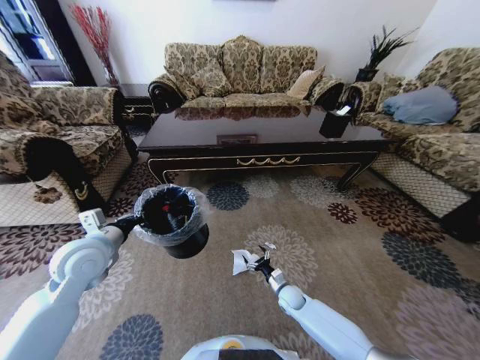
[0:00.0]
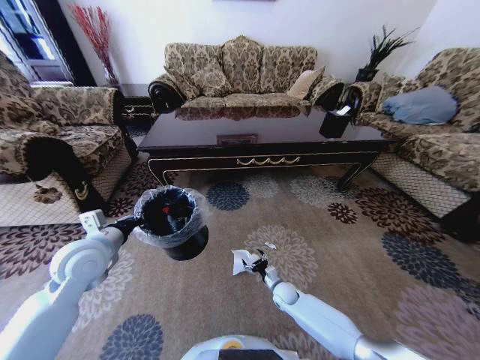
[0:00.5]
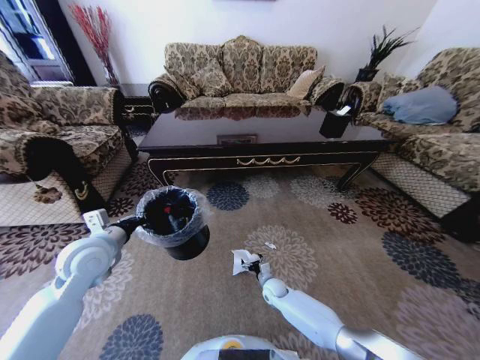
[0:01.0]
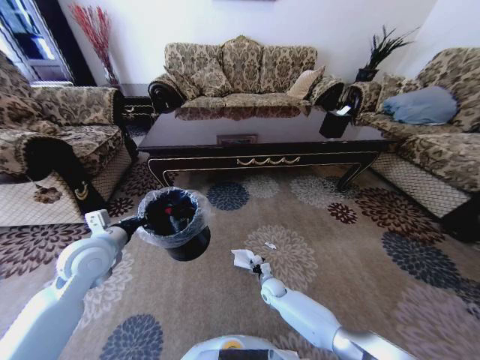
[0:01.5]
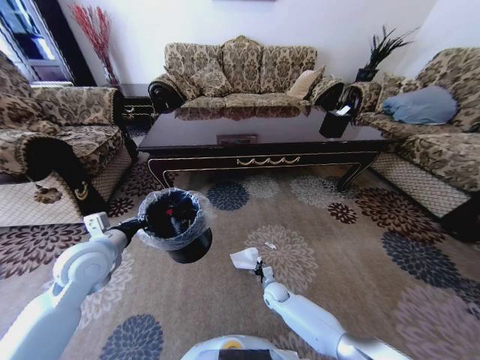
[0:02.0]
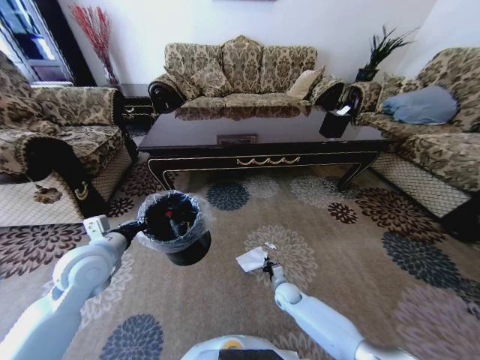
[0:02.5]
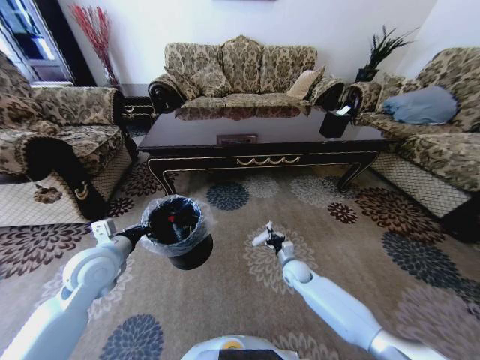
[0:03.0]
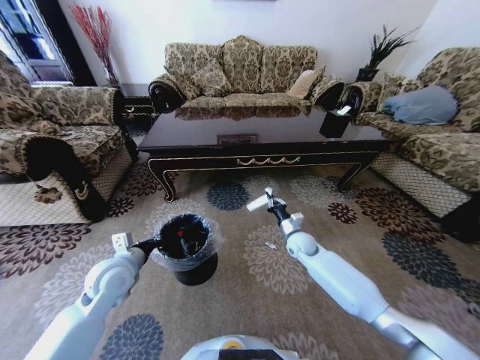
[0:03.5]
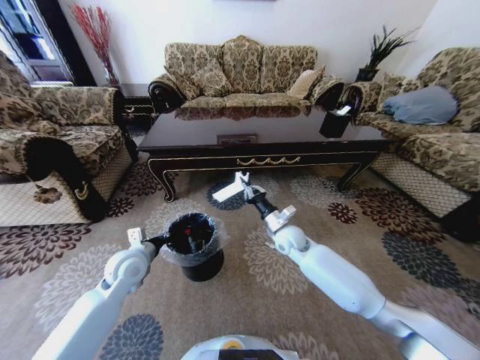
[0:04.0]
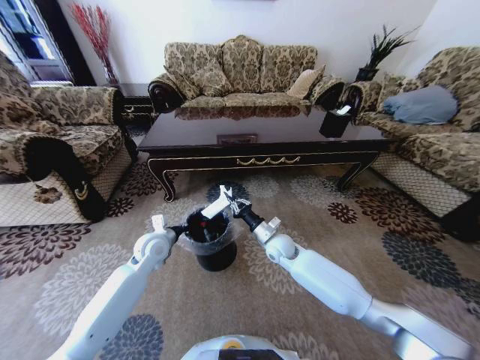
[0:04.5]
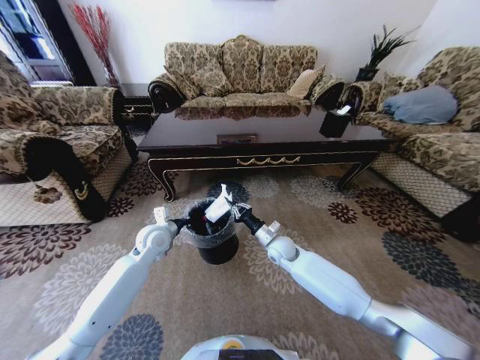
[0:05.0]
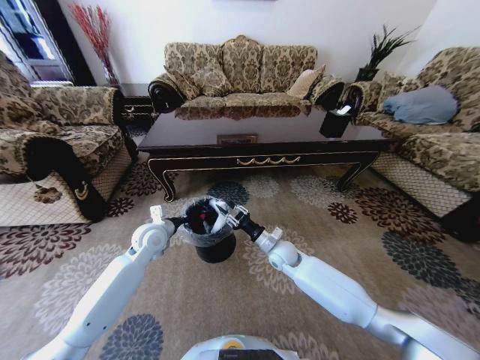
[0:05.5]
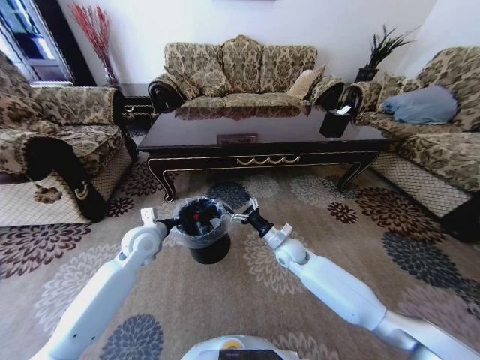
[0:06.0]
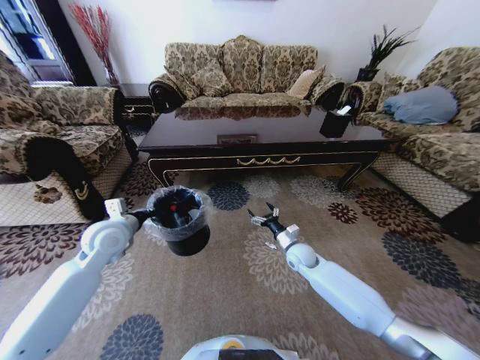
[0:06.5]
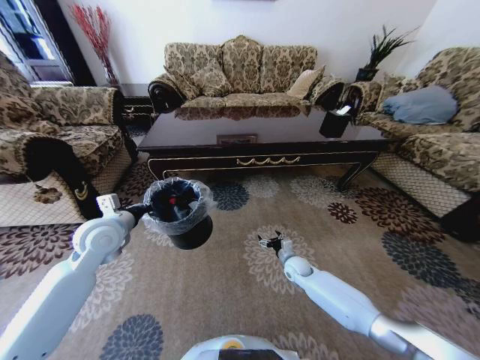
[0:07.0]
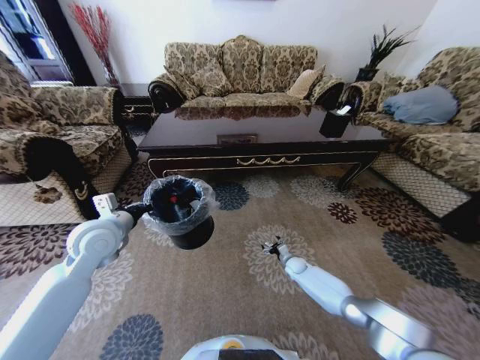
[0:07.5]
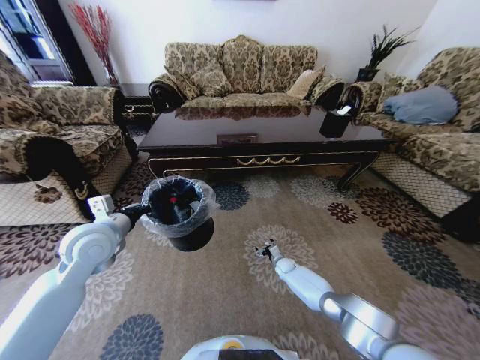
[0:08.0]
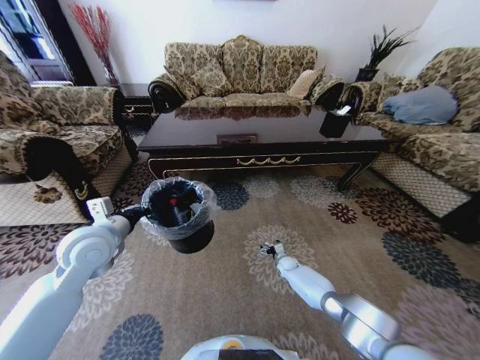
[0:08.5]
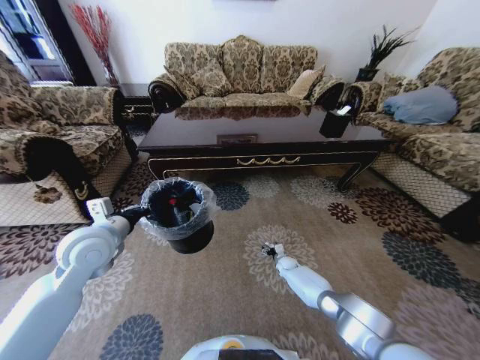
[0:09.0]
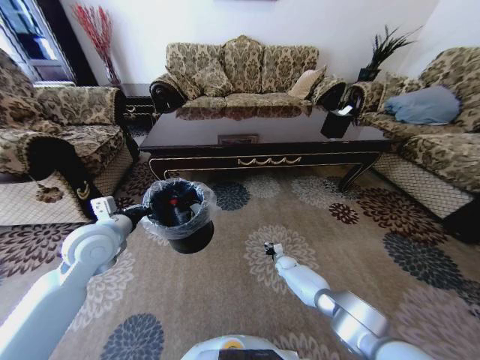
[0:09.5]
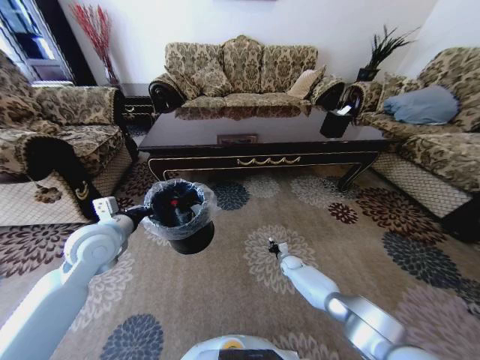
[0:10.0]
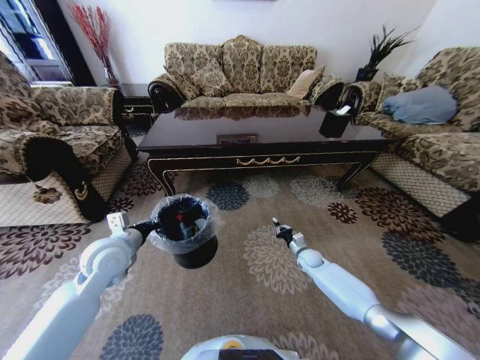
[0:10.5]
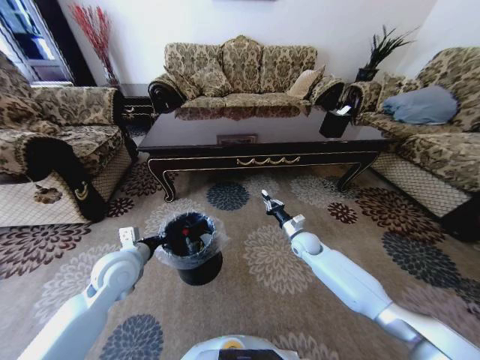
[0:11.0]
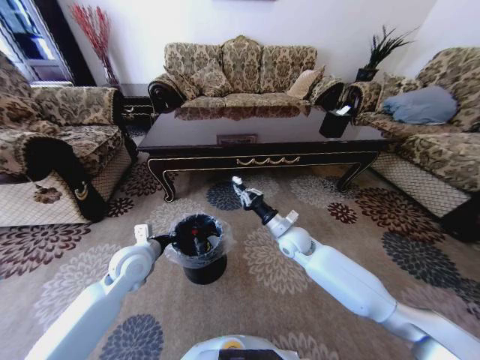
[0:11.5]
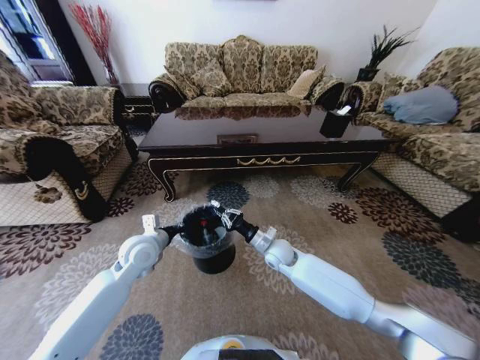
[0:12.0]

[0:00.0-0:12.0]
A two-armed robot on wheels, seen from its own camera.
Task of the whole recording: Move to the front of the table and pick up the trash from the floor, then place it into the trash bin.
0:00.0 to 0:02.0: The right gripper moves approximately 5 cm, and closes.
0:02.0 to 0:04.0: The left gripper is displaced downward by some 10 cm. The right gripper shifts some 25 cm upward.
0:04.0 to 0:06.0: The left gripper goes roughly 5 cm forward. Meanwhile the right gripper heads downward, covering some 5 cm, and opens.
0:06.0 to 0:08.0: The left gripper travels upward, backward and to the left by approximately 15 cm, while the right gripper is displaced downward by about 25 cm.
0:08.0 to 0:10.0: The right gripper closes its fingers.
0:10.0 to 0:12.0: The left gripper shifts roughly 10 cm downward and to the right. Meanwhile the right gripper shifts about 25 cm upward and to the left.

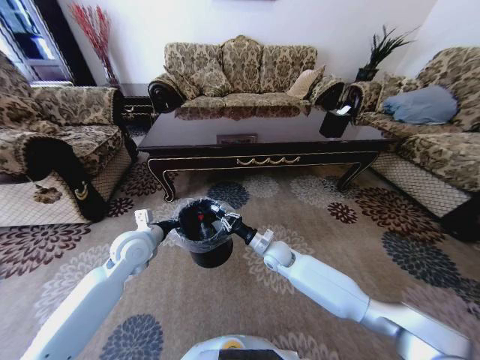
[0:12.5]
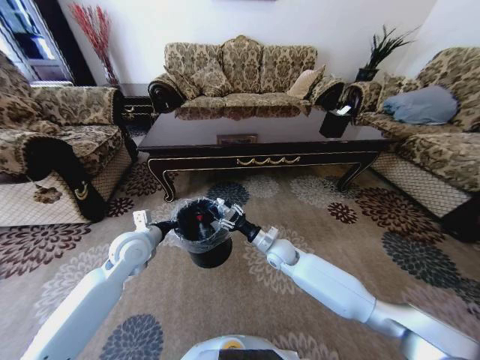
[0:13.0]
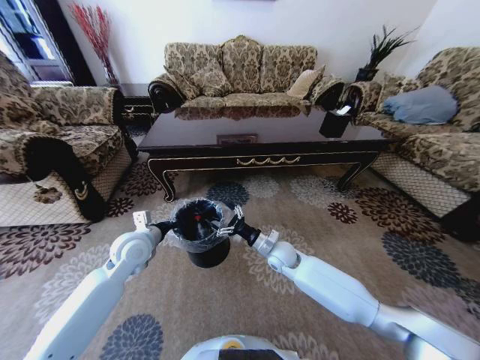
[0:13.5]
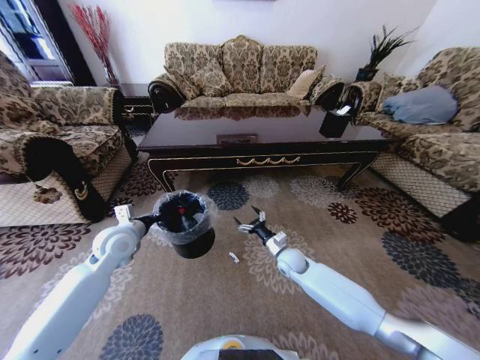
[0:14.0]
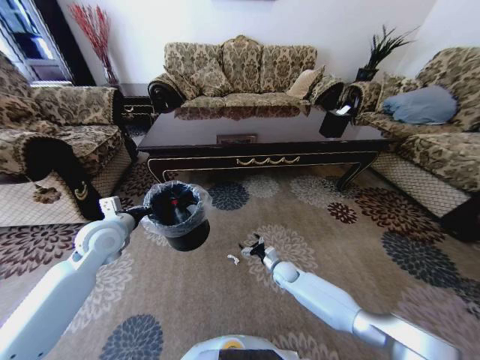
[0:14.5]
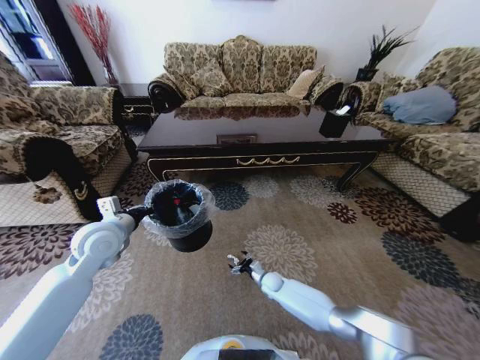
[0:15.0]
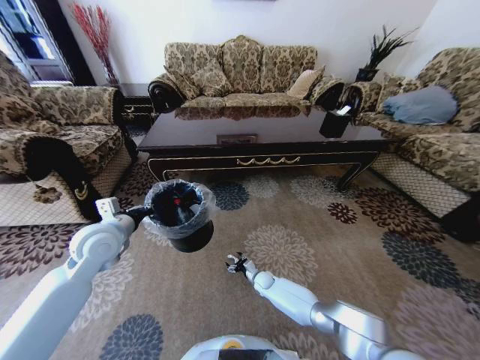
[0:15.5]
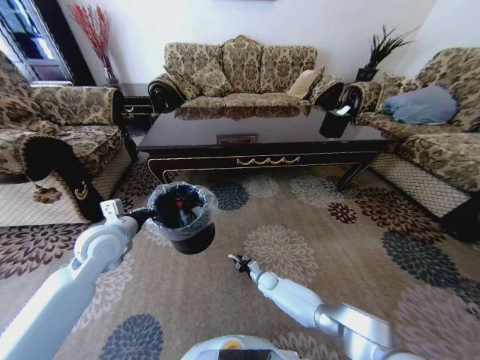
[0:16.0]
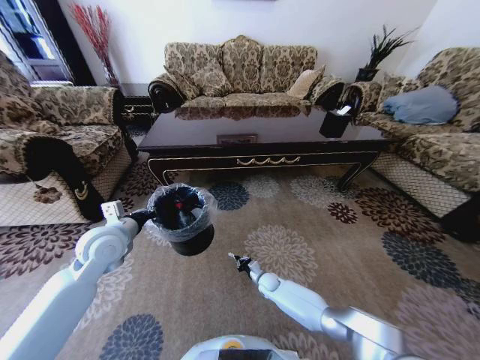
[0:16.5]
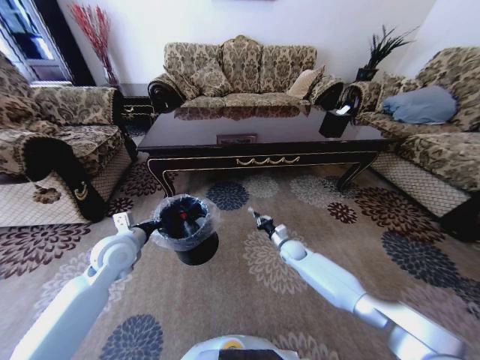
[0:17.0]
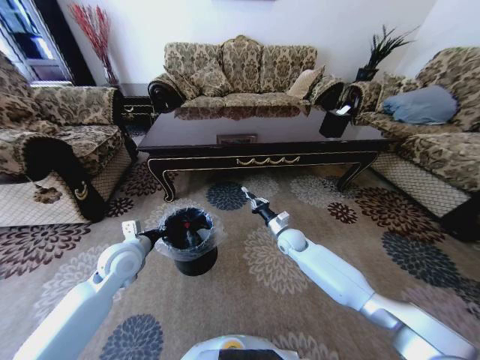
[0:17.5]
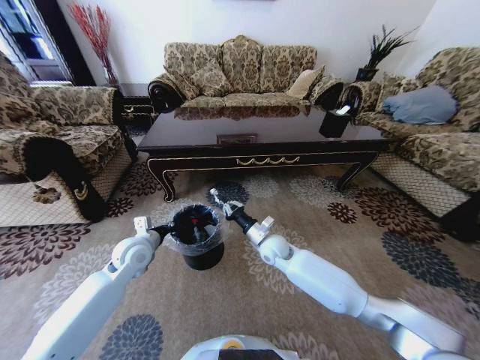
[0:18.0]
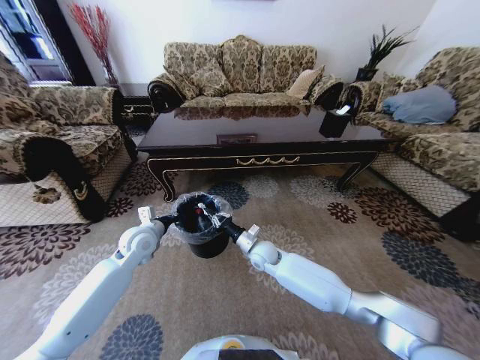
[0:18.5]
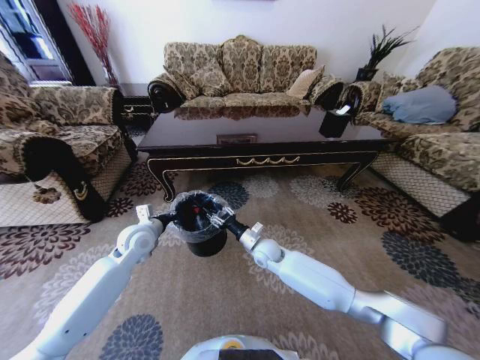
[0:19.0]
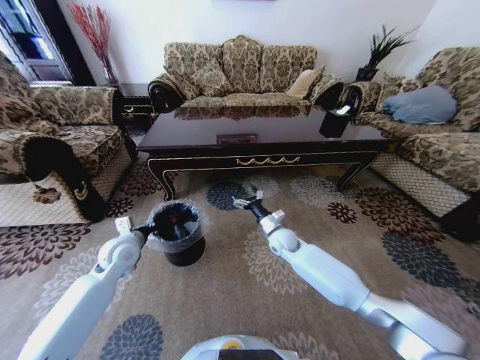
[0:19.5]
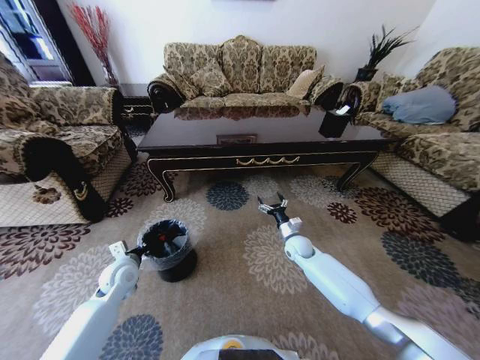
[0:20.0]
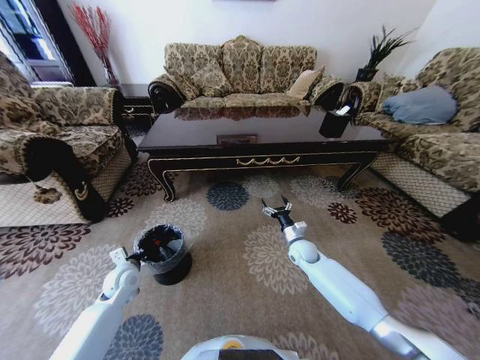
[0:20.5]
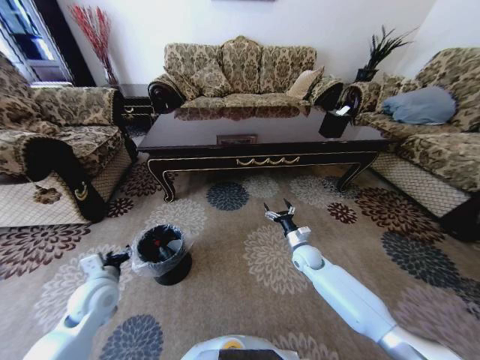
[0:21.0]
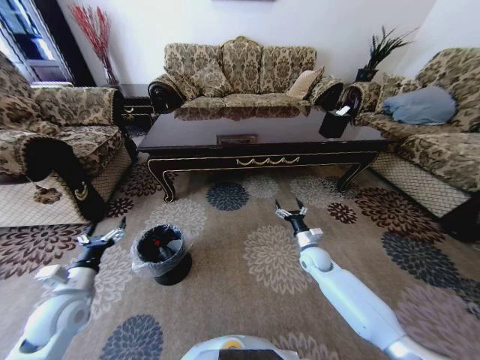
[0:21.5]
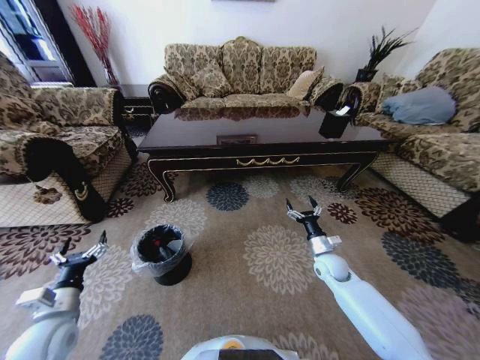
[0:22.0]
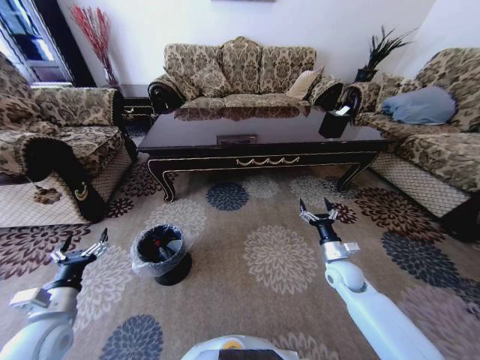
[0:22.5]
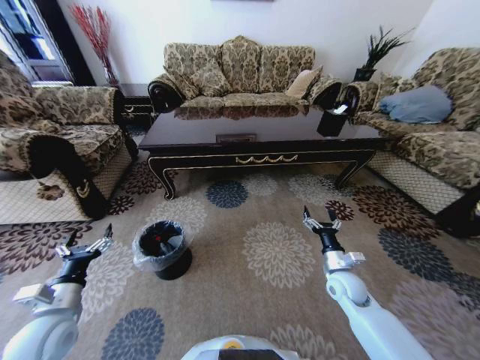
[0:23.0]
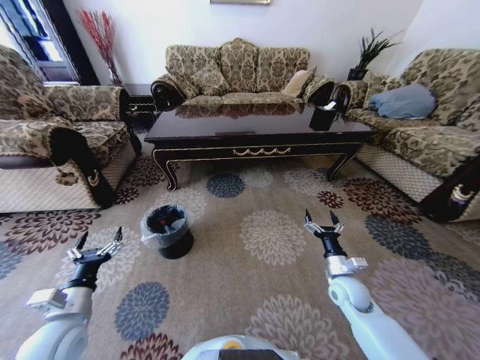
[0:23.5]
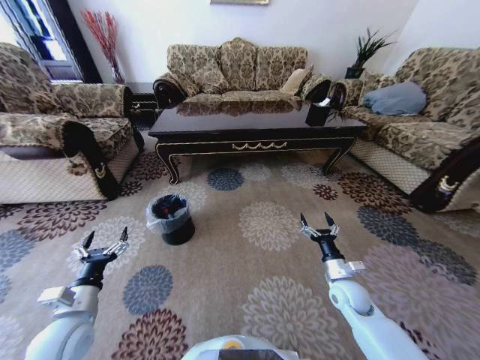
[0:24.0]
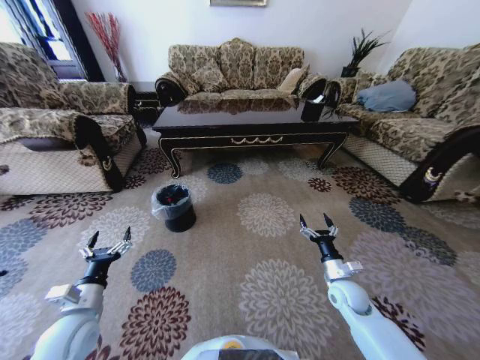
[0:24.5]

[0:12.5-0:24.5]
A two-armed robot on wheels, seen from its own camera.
Task of the whole recording: Move to the front of the table and pick up the trash from the floor, then place it into the trash bin.
0:12.5 to 0:14.5: The right gripper moves downward and to the right, approximately 15 cm, and opens up; the left gripper goes about 5 cm to the left.
0:14.5 to 0:16.5: The right gripper moves downward, some 5 cm, and closes up.
0:16.5 to 0:18.5: The right gripper goes some 20 cm upward; the left gripper goes some 10 cm downward and forward.
0:18.5 to 0:20.5: The left gripper heads downward, to the left and backward, covering roughly 15 cm. Meanwhile the right gripper heads to the right, covering roughly 15 cm, and opens.
0:20.5 to 0:22.5: The right gripper heads backward and to the right, covering some 15 cm, while the left gripper heads backward, upward and to the left, covering approximately 20 cm, and opens.
0:22.5 to 0:24.5: The right gripper moves backward, about 5 cm.

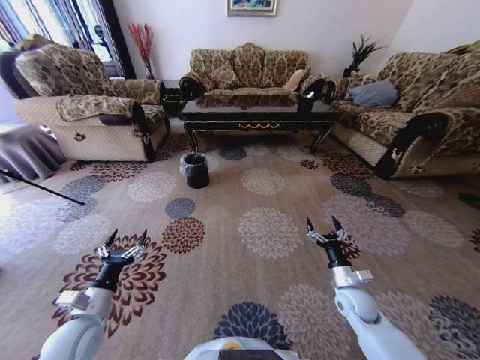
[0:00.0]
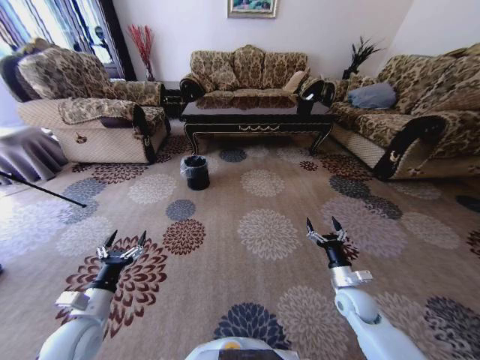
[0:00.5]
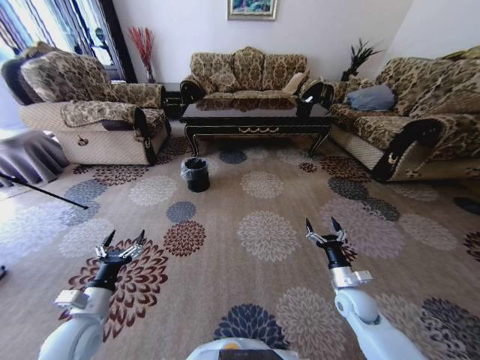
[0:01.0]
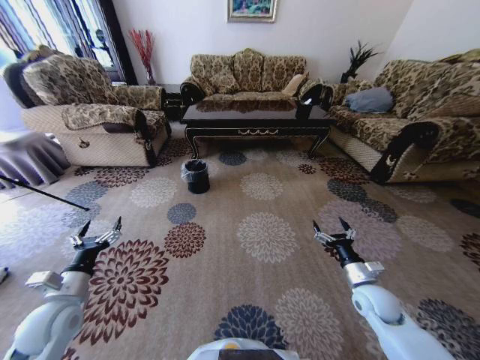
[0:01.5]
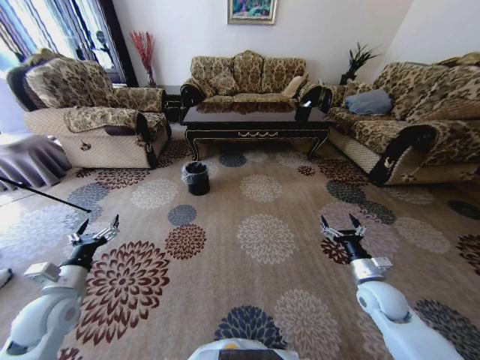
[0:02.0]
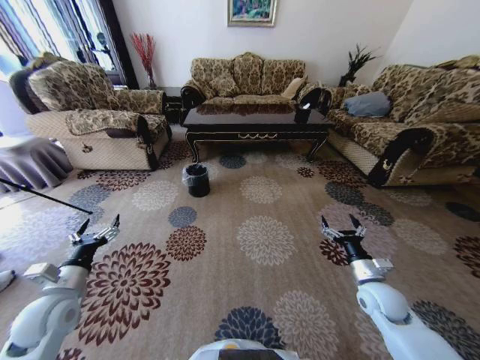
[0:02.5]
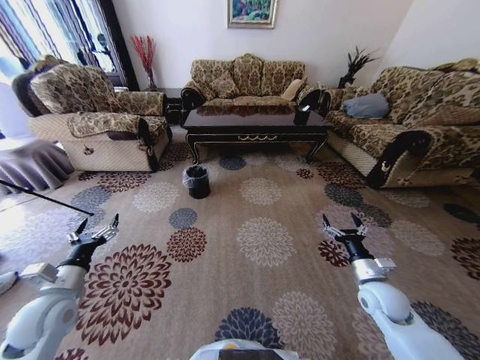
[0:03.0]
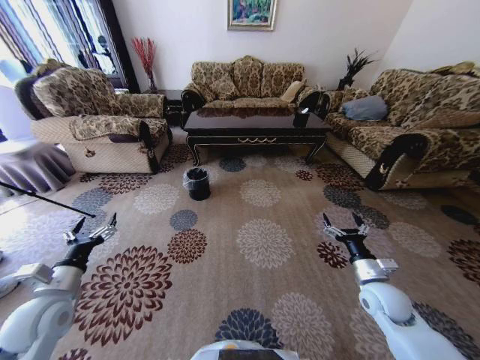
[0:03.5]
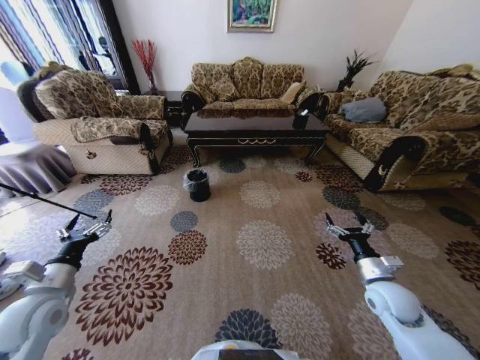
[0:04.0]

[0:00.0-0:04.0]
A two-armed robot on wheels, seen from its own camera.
Task of the whole recording: Move to the front of the table and pick up the trash from the floor, then place it into the trash bin.
0:00.0 to 0:02.0: The left gripper shifts roughly 5 cm to the left; the right gripper goes roughly 5 cm upward.